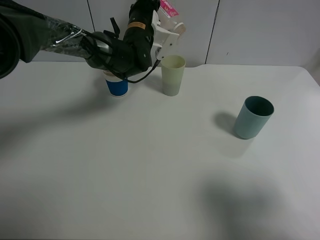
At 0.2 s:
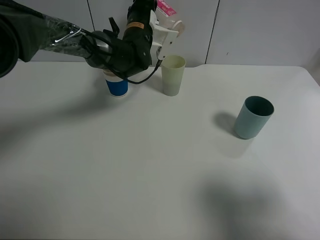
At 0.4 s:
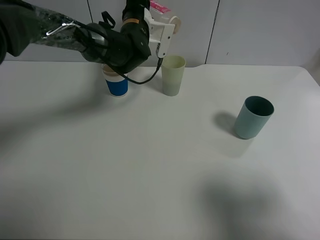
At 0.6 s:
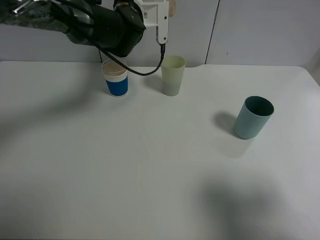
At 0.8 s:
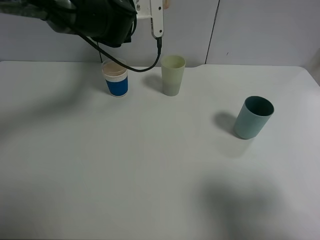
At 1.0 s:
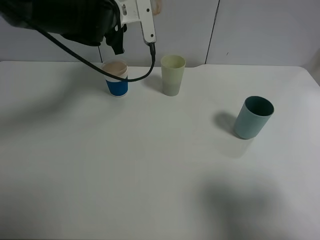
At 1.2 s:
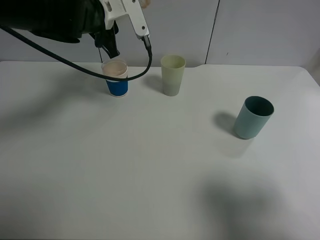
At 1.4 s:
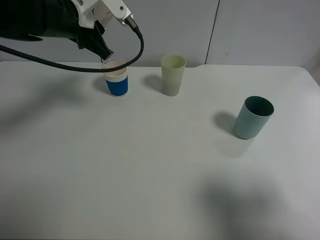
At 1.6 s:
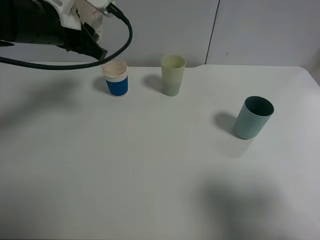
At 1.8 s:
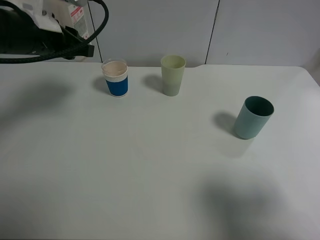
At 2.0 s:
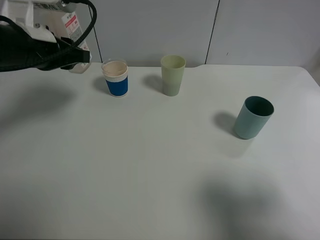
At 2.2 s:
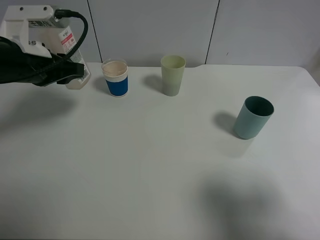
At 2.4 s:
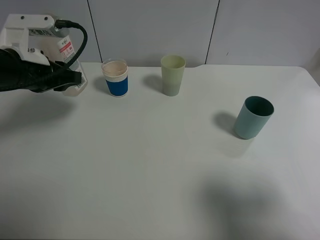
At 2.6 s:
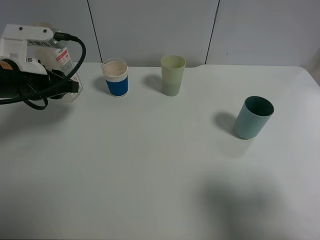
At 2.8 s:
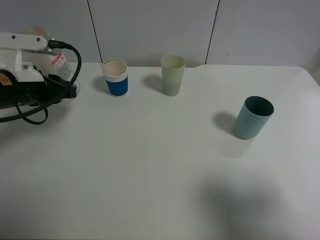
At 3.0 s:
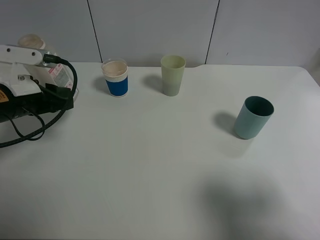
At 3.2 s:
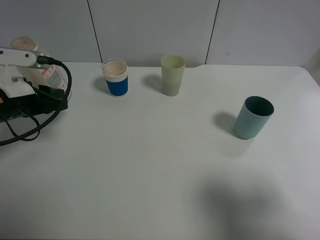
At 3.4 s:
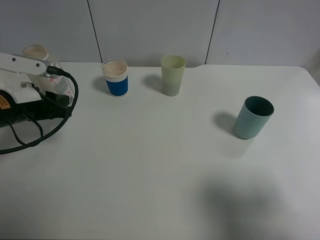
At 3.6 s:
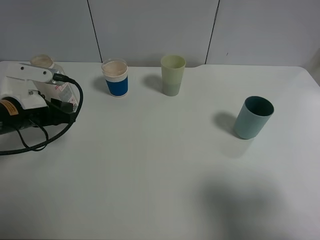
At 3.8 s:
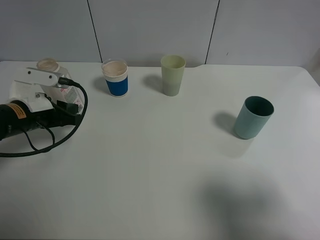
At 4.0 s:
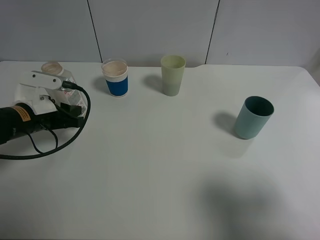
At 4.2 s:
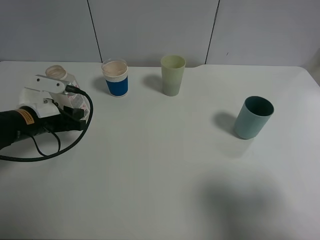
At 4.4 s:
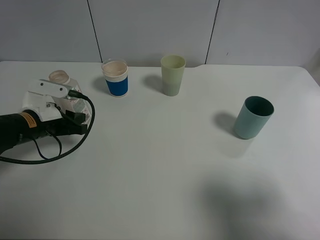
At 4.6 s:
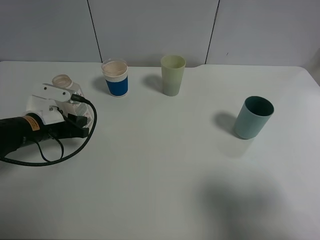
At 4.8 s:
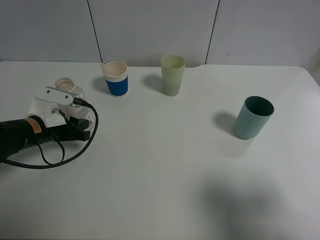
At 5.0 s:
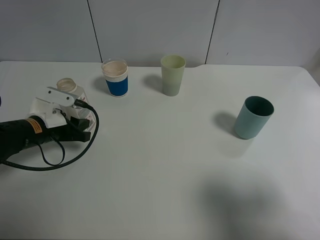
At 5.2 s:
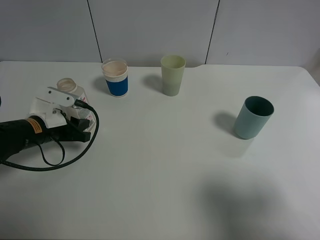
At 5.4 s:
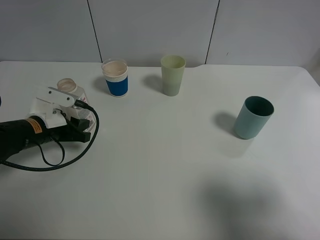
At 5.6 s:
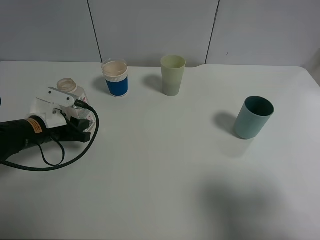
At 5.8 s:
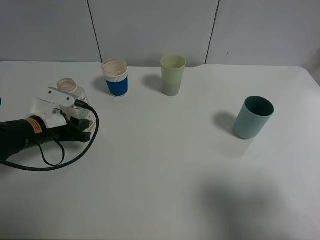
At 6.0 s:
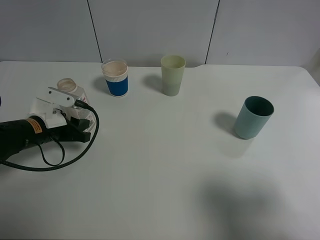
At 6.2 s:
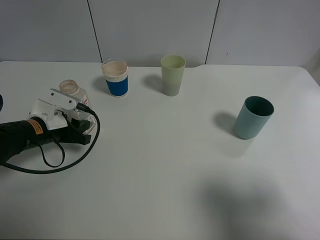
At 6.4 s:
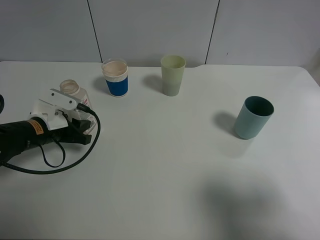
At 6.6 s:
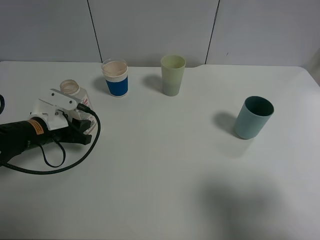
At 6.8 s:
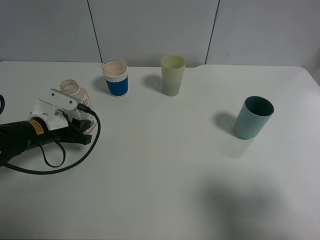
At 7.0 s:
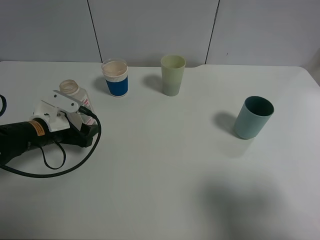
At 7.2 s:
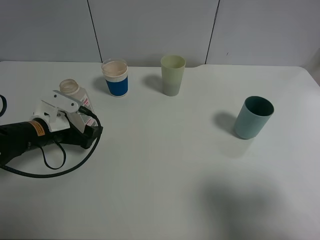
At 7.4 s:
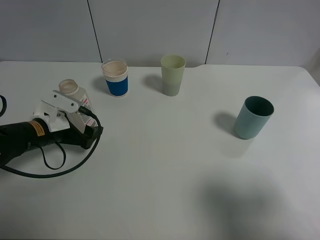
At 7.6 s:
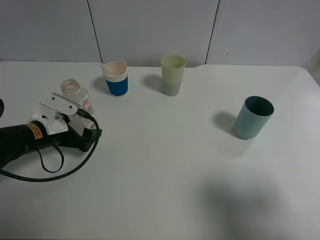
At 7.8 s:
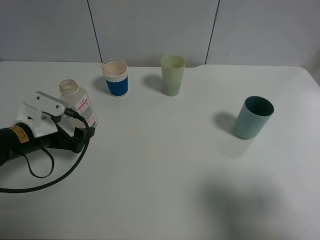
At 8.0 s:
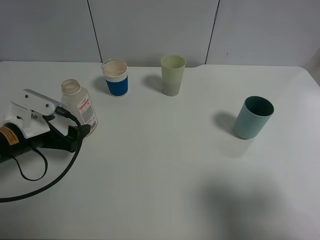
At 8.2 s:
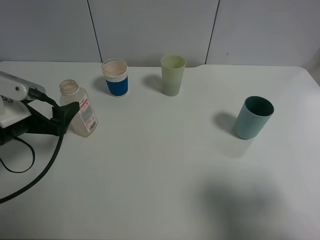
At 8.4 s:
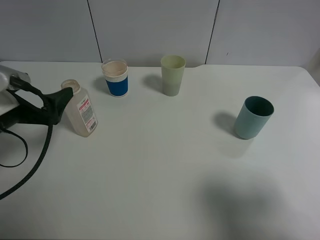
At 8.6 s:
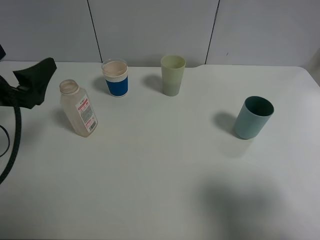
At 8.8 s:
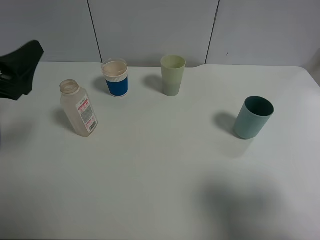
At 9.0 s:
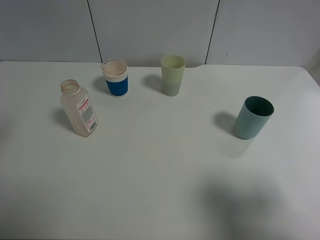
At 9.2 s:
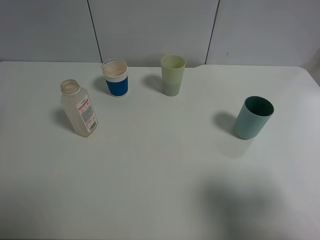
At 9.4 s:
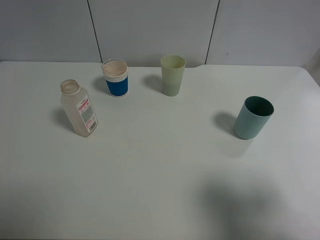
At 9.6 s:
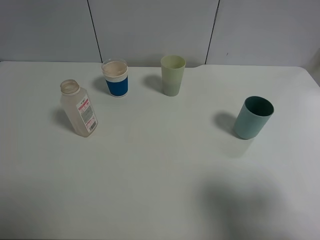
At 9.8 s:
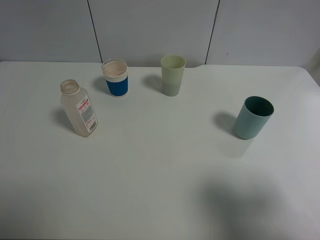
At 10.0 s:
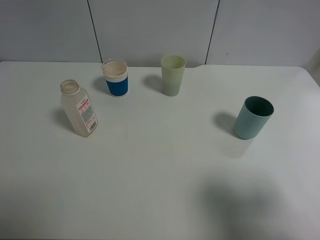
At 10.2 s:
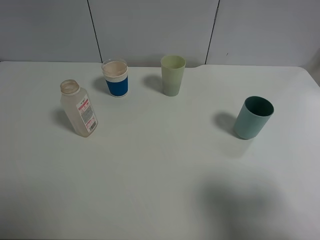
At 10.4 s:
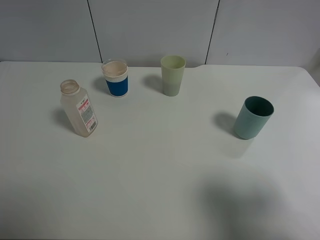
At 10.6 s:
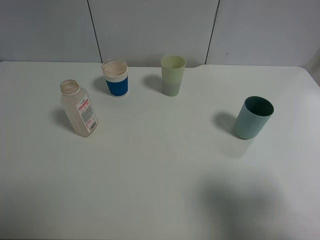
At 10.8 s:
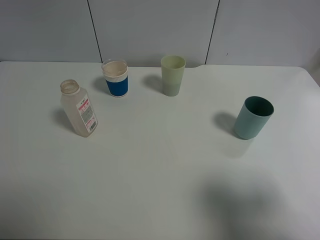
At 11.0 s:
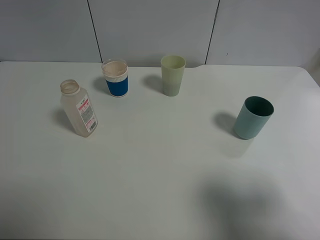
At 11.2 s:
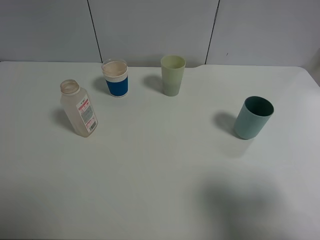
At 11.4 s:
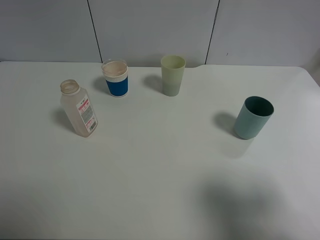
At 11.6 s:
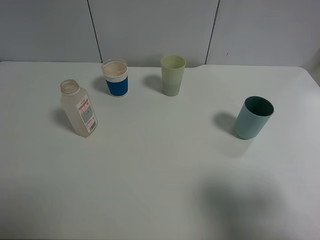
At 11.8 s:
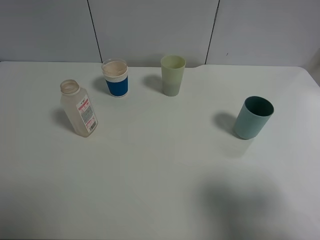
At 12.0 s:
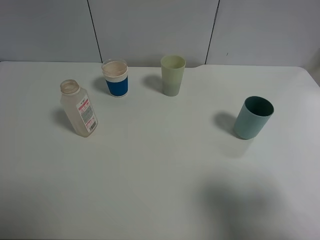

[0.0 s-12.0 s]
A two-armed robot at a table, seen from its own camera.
Task of the whole recording: use a clamp to hold the bottle of the drink, pour the beverage into a random cup, then clamp the cup containing the drink and pour the drink into another random cup.
Step, 0.6 to 7.2 s: Place the drink bottle on the table with left gripper.
0.0 to 1.6 s: The left gripper is displaced backward, to the left and upward by roughly 20 cm.
1.6 to 3.0 s: The left gripper travels backward, downward and to the left by approximately 15 cm.
3.0 to 4.4 s: The left gripper goes about 10 cm downward.
4.4 to 6.0 s: The grippers stay close to where they were, moving slightly.
6.0 to 7.6 s: The left gripper opens.
7.6 to 9.0 s: The left gripper moves upward and backward, about 20 cm.

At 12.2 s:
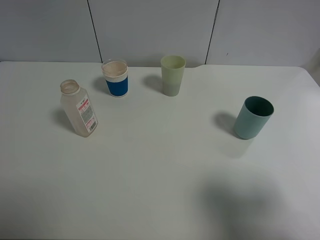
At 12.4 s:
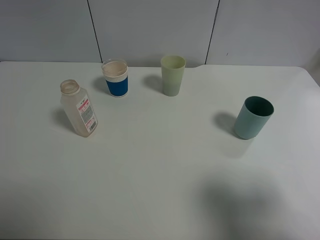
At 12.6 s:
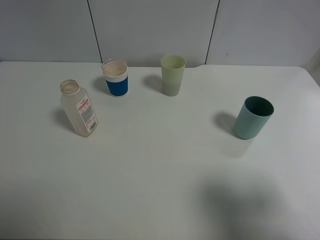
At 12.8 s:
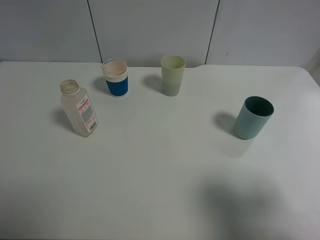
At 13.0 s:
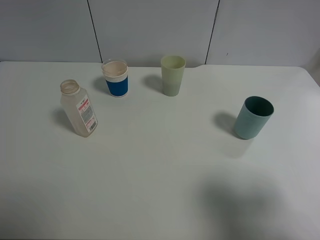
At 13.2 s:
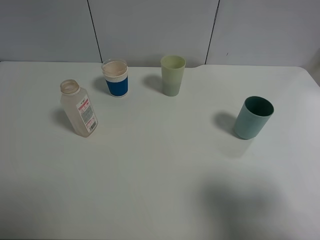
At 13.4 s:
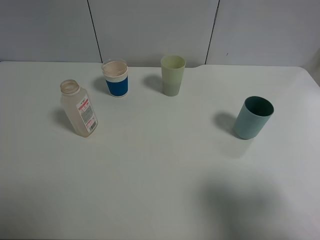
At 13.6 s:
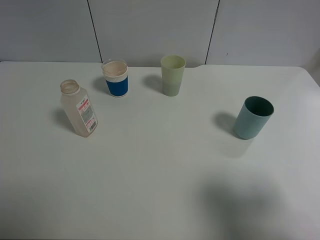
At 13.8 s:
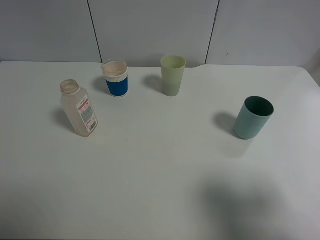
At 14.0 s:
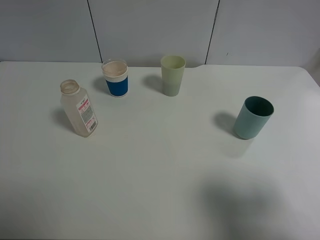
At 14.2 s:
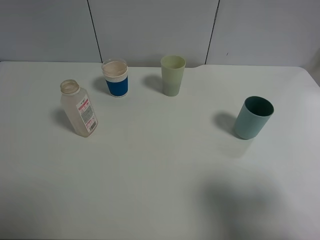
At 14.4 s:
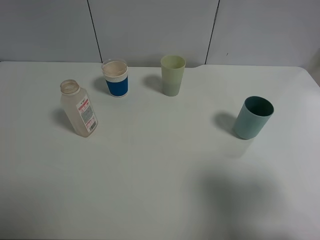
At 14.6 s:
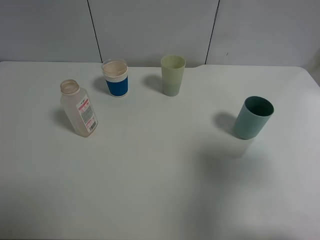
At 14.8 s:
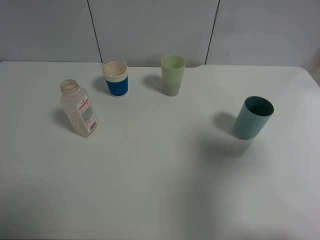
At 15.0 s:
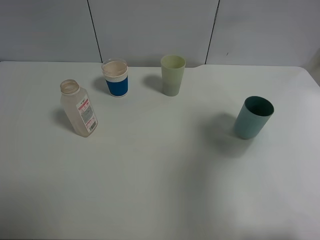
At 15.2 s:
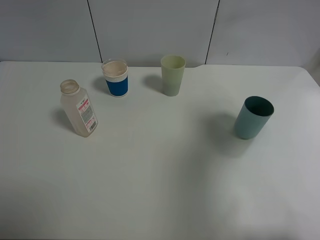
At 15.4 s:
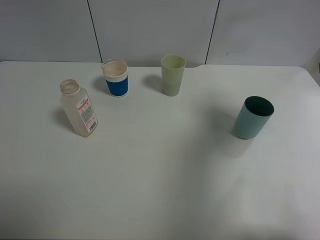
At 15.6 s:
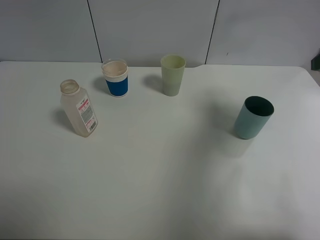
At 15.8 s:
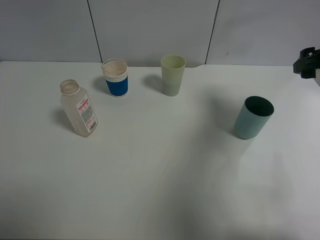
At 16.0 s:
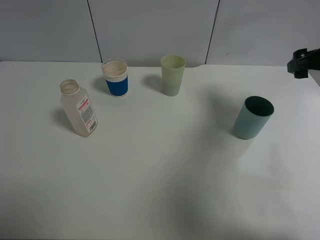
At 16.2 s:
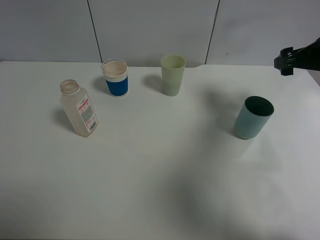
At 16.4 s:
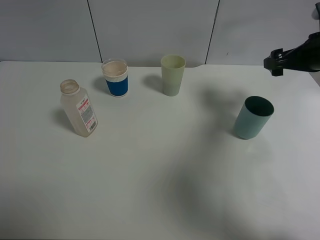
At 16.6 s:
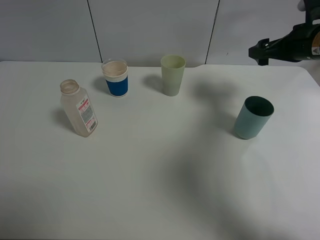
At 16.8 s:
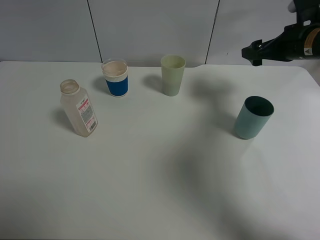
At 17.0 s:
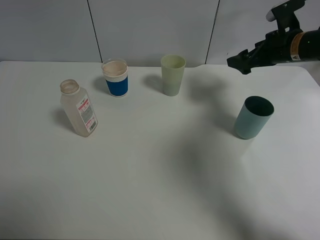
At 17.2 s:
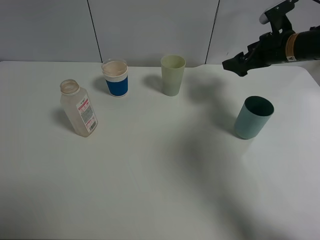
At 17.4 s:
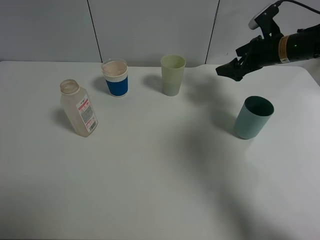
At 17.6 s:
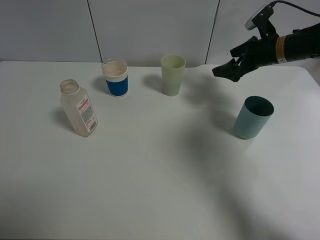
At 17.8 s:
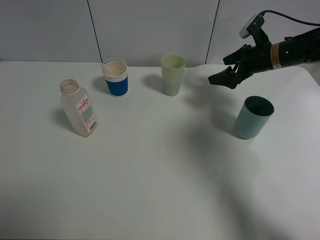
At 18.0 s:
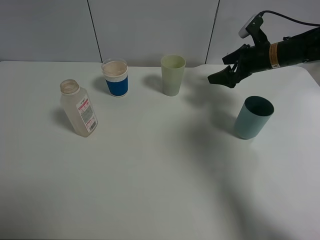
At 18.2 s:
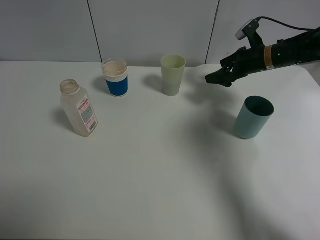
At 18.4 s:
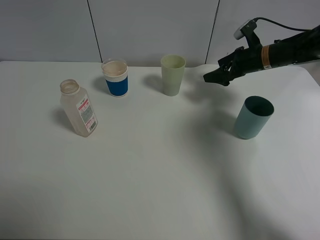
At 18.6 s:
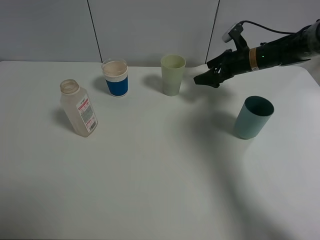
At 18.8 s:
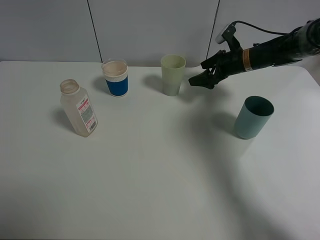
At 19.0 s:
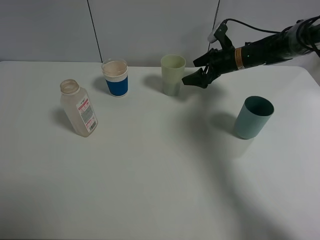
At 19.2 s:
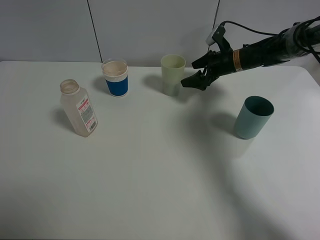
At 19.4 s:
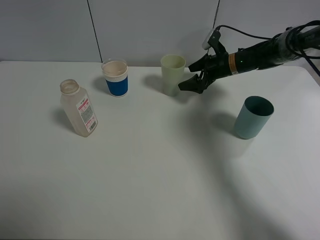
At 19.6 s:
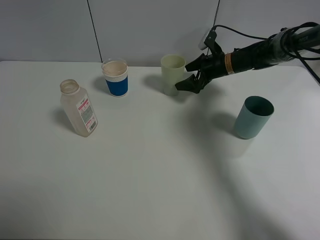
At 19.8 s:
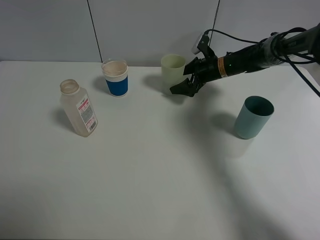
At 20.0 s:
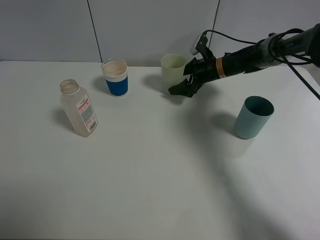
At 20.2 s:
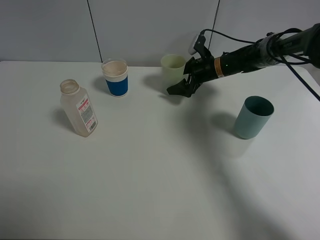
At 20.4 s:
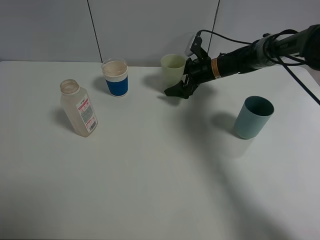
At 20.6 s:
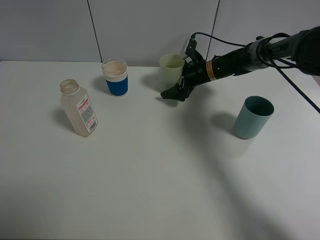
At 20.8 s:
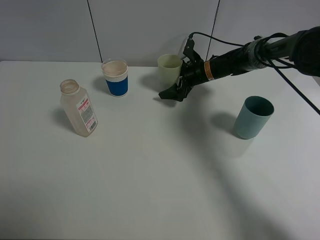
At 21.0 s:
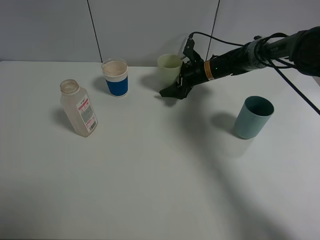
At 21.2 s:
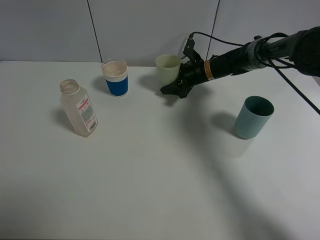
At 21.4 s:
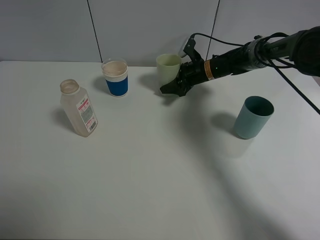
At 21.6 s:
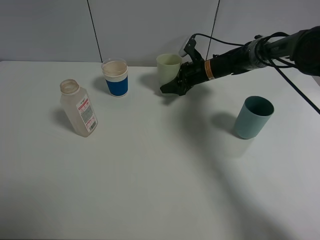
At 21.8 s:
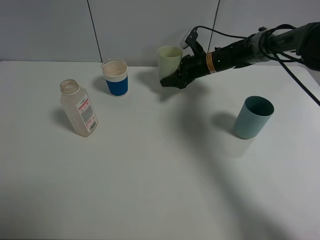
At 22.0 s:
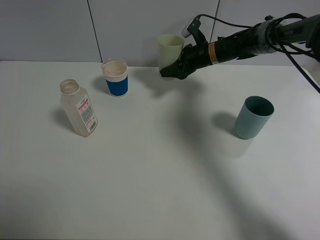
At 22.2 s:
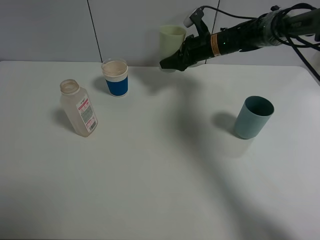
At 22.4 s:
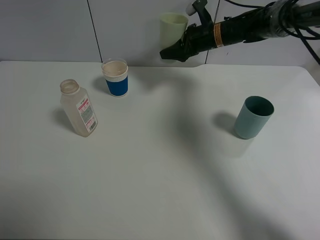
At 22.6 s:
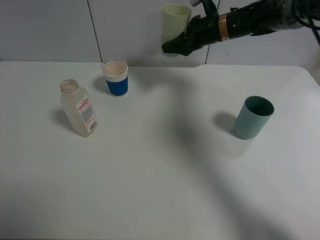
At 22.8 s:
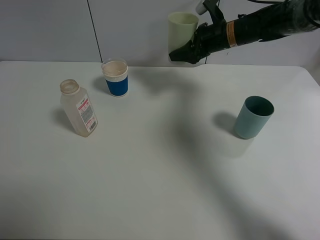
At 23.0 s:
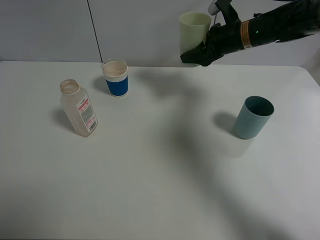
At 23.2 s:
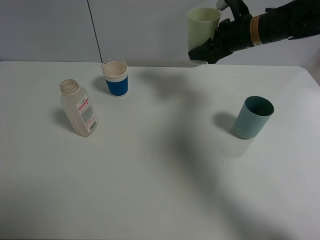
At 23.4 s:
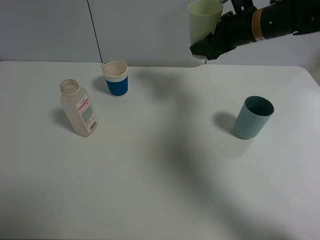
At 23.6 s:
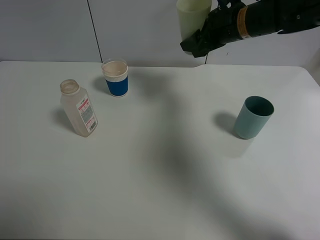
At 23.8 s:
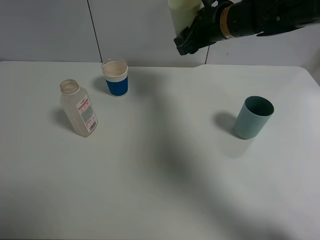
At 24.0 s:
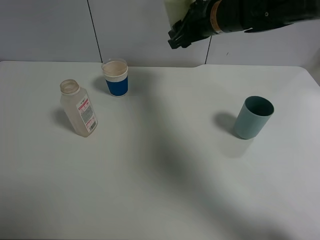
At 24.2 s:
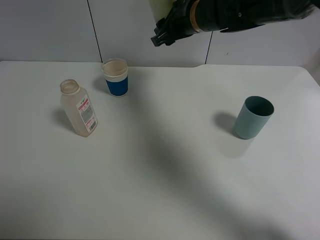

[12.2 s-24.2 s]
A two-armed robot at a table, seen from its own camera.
Task of the whole recording: use a clamp to hold the bottle of the drink, pour the beverage into a random cup, then clamp the cup containing the drink and pour the drink into another random cup.
Step, 12.2 to 21.6 s: Pick up the green plastic cup bottle with right gripper.
12.2 to 13.8 s: Both grippers stay put.
13.8 to 15.2 s: The right gripper moves forward, about 20 cm.
15.2 to 16.6 s: The right gripper heads forward and downward, covering about 20 cm.
16.6 to 18.2 s: The right gripper is displaced forward and downward by some 10 cm.
18.2 to 19.8 s: The right gripper moves to the left and downward, roughly 10 cm.
19.8 to 21.2 s: The right gripper closes its fingers.
21.2 to 22.6 s: The right gripper travels upward by approximately 15 cm.
22.6 to 24.2 s: The right gripper shifts some 10 cm backward, to the left and upward.
